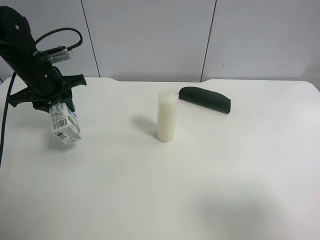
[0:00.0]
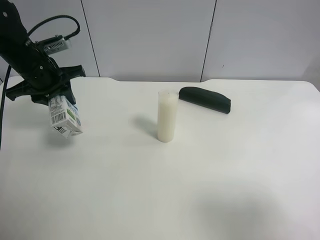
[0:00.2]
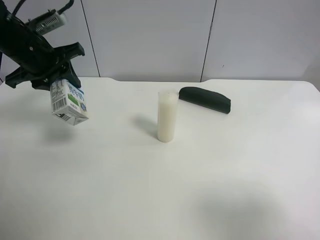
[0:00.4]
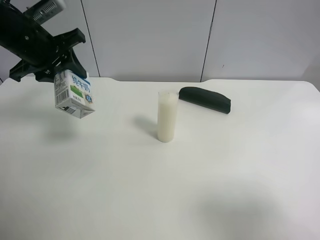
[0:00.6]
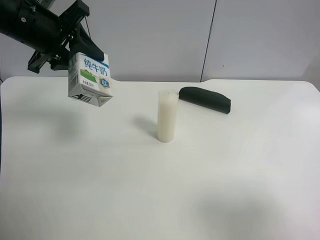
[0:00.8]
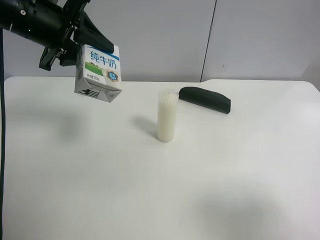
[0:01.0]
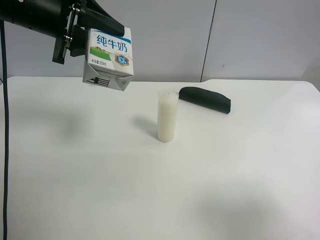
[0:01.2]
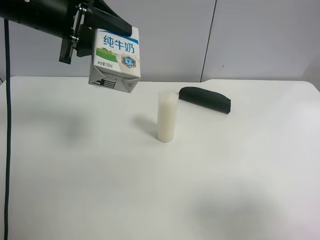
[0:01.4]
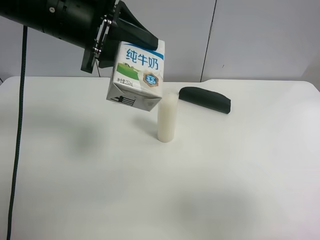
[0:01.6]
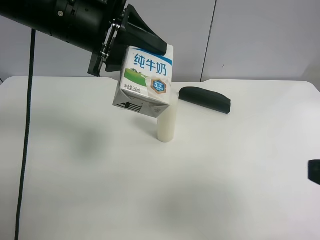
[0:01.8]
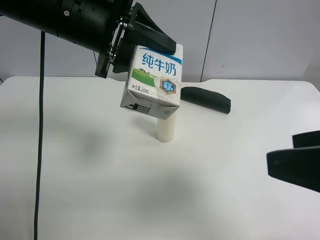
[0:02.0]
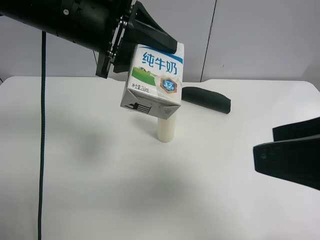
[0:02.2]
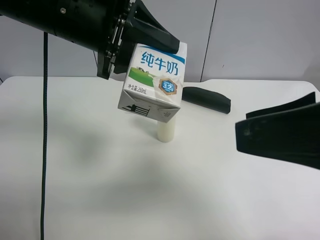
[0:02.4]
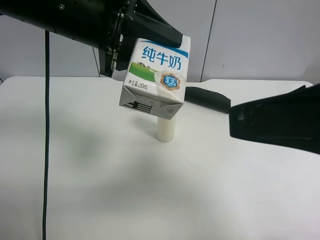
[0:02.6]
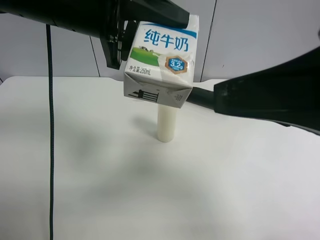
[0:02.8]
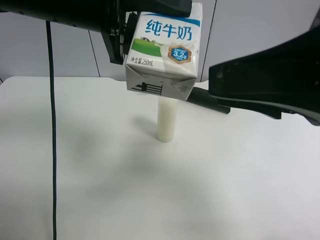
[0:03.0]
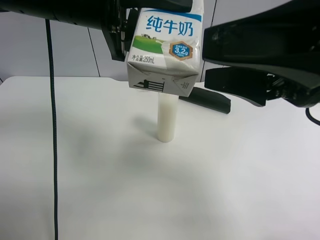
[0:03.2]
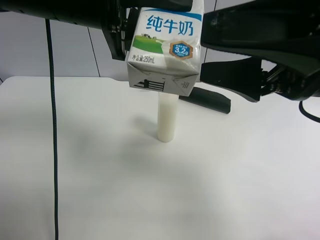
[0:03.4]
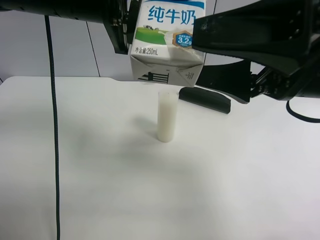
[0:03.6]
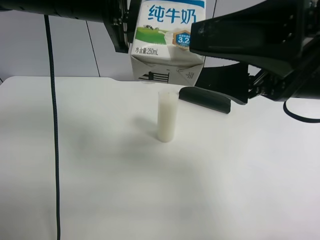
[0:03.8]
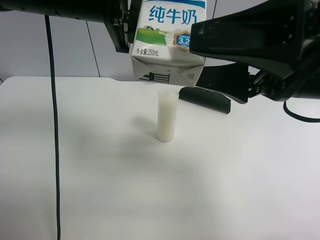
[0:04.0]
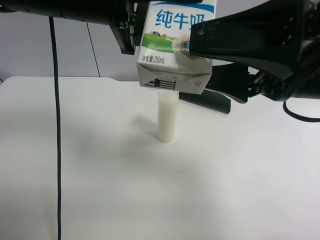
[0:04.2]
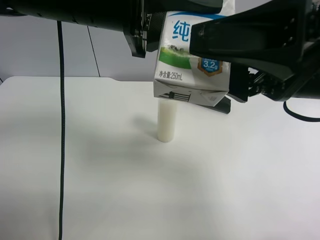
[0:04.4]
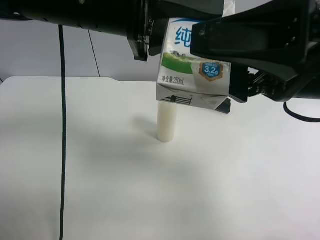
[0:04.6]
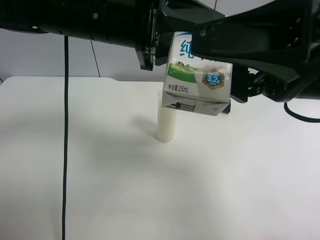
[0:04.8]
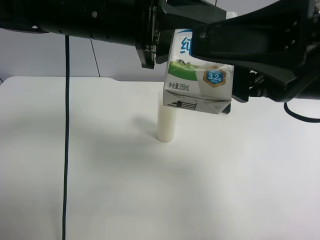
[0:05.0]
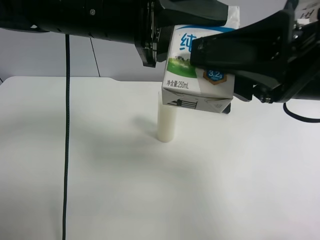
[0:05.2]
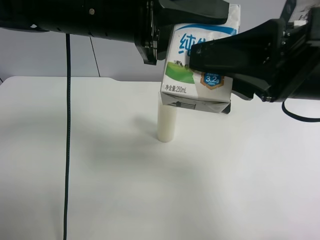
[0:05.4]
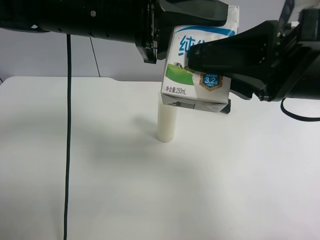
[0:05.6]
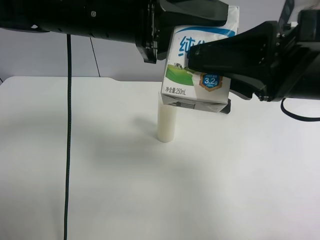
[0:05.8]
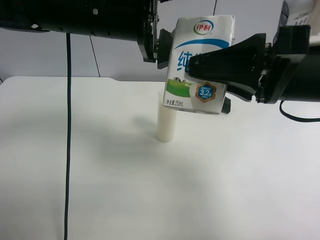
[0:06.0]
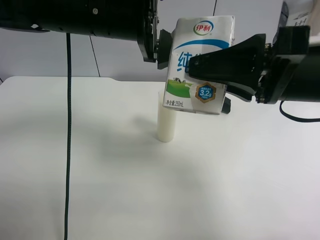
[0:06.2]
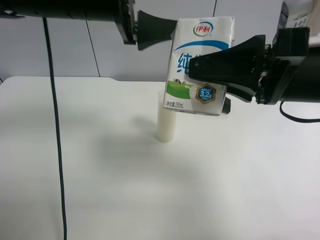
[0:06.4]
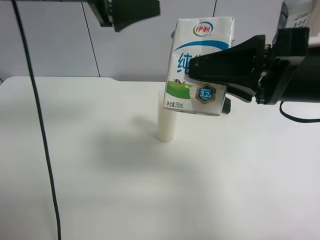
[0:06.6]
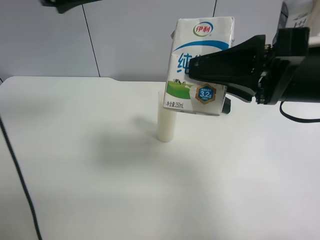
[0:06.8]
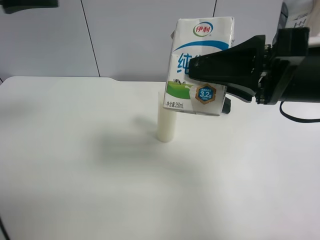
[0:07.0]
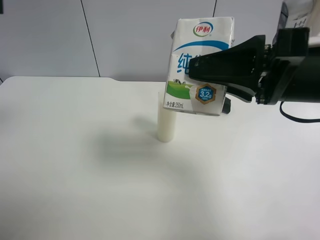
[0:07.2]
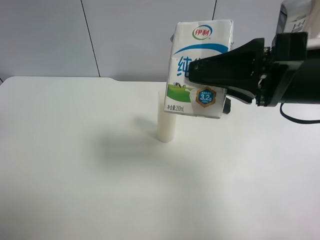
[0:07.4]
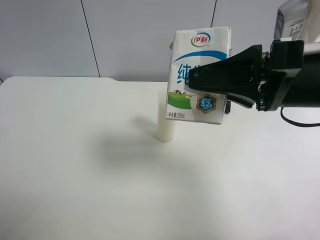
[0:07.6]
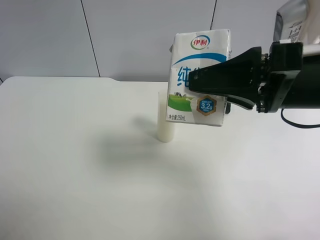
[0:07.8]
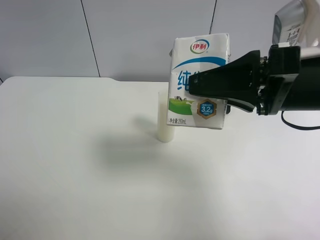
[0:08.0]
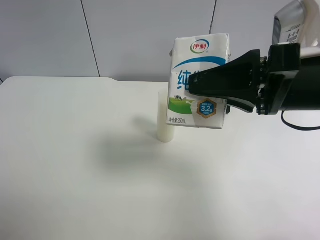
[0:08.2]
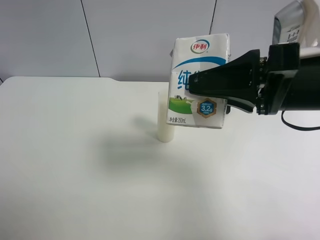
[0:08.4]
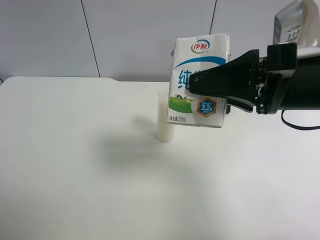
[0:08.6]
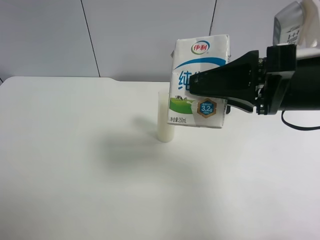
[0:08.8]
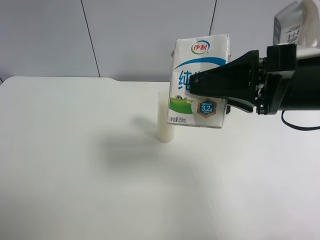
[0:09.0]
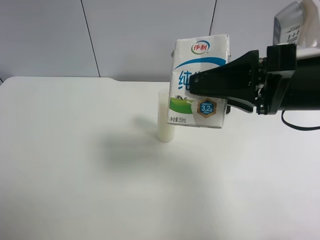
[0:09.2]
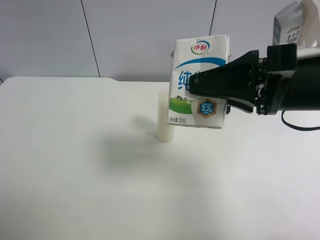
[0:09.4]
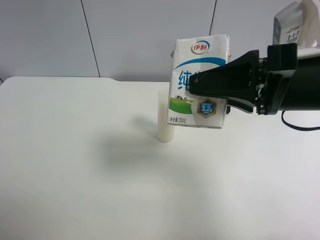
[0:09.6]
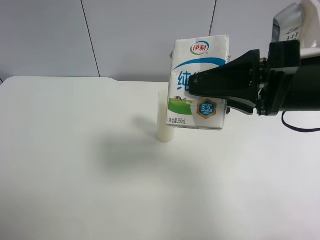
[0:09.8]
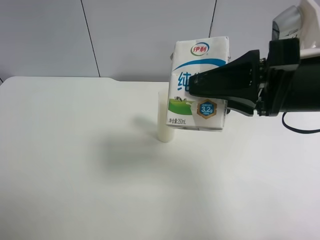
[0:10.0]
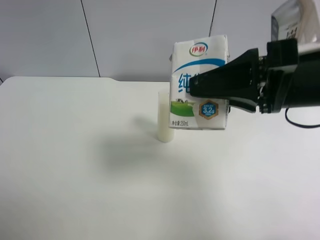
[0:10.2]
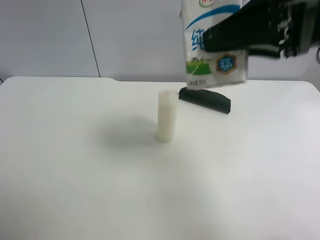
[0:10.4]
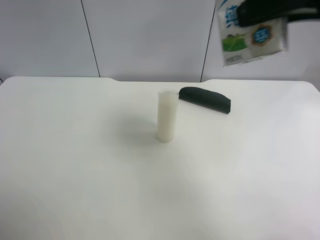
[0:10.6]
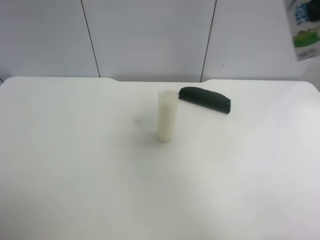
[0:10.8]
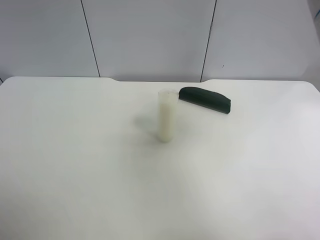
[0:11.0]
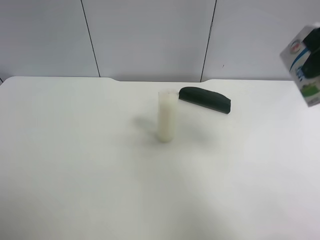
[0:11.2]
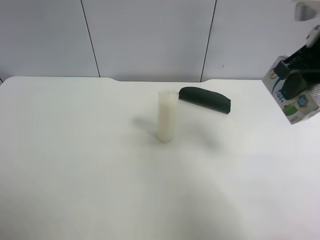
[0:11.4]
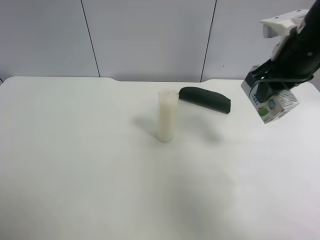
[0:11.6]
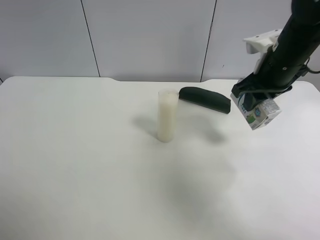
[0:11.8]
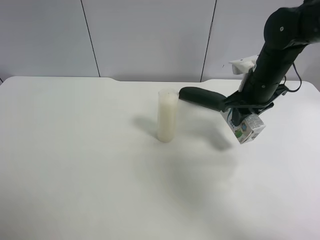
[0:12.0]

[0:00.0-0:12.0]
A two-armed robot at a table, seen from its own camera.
Task of the whole recording: use the left gripper to pick up the item and transfer it from the left gripper to the right gripper.
0:00.0 to 0:01.6: The left gripper heads upward, to the right and backward, covering some 20 cm.
0:01.6 to 0:03.0: The right gripper shifts approximately 15 cm forward and to the left.
0:04.4 to 0:06.0: The left gripper opens up, while the right gripper closes its fingers.
0:06.0 to 0:07.6: The left gripper is displaced to the left and backward by approximately 25 cm.
0:07.6 to 0:09.0: The left gripper travels downward and backward by some 15 cm.
0:09.0 to 0:10.4: The right gripper goes approximately 10 cm upward.
0:10.4 to 0:12.0: The right gripper is displaced downward and forward by approximately 25 cm.

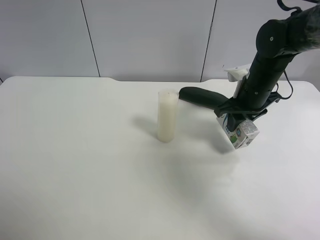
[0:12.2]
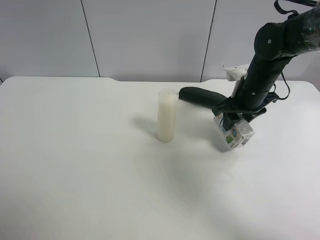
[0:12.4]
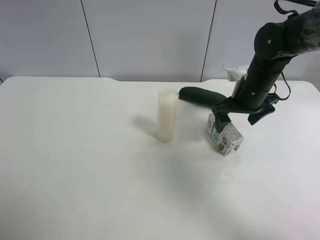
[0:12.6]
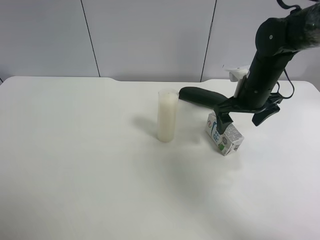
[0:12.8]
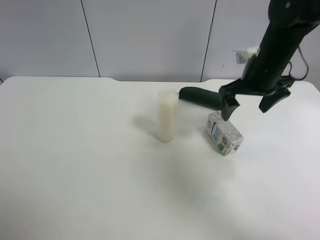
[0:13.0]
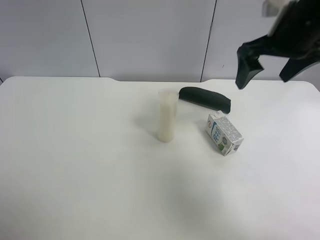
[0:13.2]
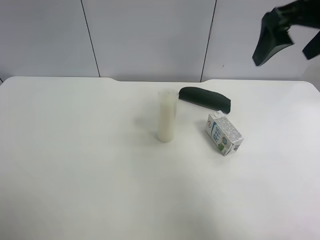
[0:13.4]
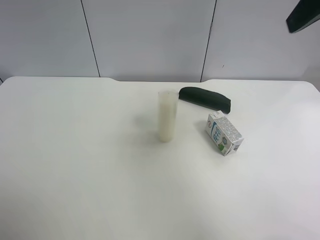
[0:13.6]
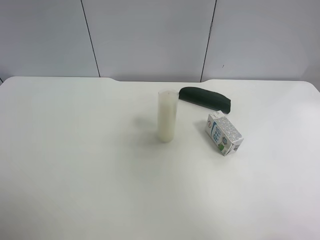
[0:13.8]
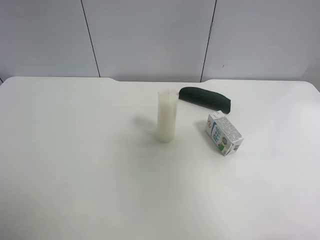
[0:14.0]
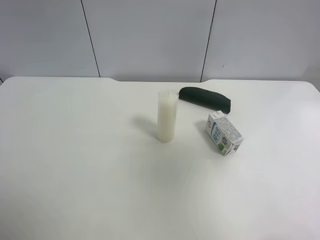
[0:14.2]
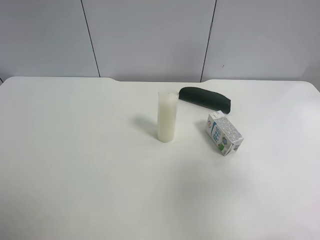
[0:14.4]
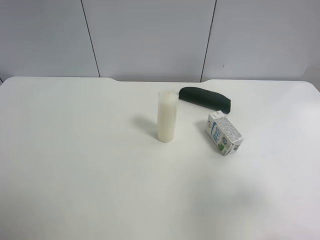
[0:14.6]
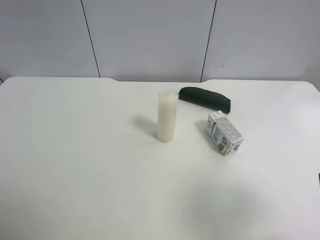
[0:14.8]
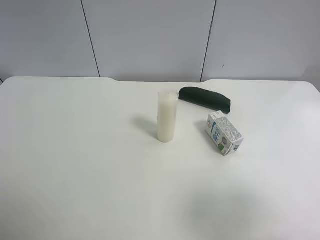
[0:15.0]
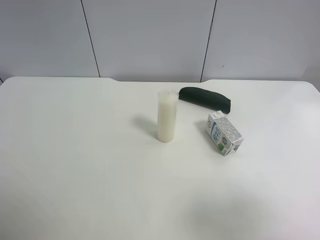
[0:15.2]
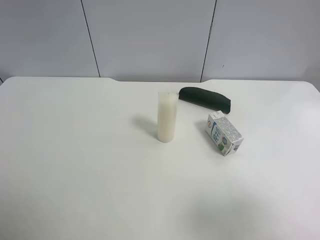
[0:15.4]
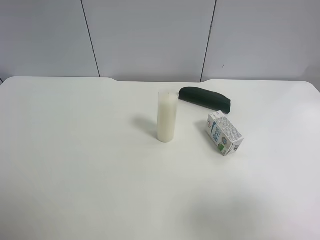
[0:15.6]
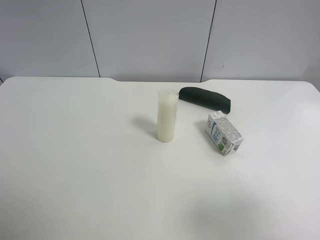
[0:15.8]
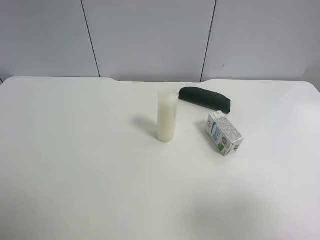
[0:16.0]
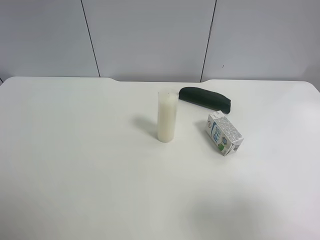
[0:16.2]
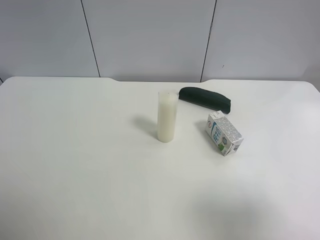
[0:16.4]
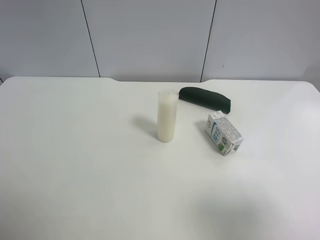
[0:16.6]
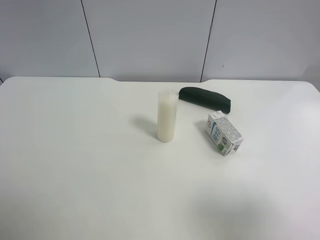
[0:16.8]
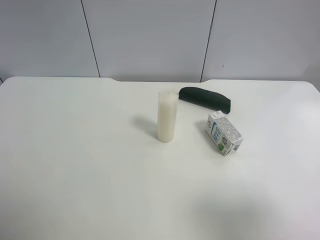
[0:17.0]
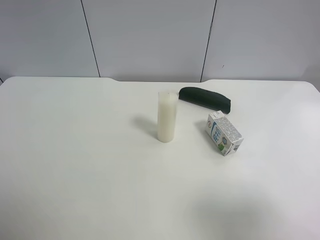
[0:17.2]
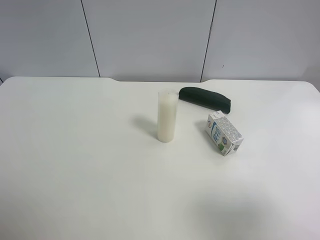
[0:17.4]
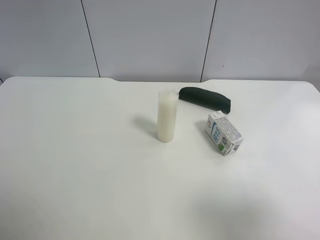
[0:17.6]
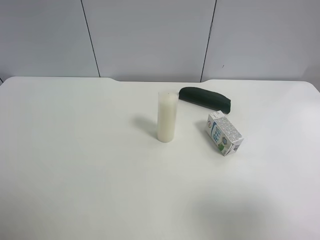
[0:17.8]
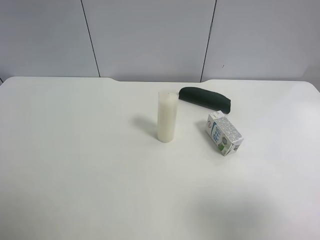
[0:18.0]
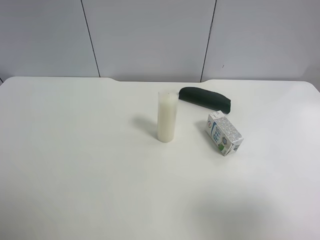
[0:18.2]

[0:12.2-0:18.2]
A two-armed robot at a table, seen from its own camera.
Task of the whole recording: use the left gripper to pick up the item and transfer it from the left gripper to the right gripper.
0:12.2 to 0:13.8: The right gripper moves upward and backward, about 35 cm, and opens up.
0:13.8 to 0:15.2: The right gripper shifts approximately 25 cm downward and backward.
0:16.6 to 0:18.2: The two grippers keep their place.
